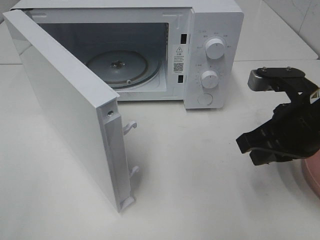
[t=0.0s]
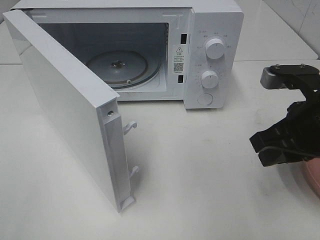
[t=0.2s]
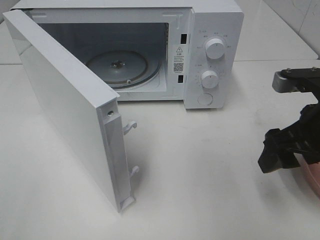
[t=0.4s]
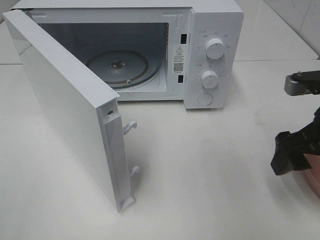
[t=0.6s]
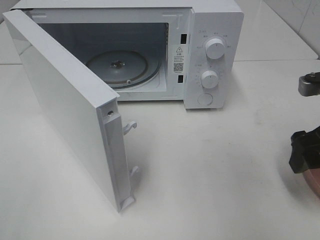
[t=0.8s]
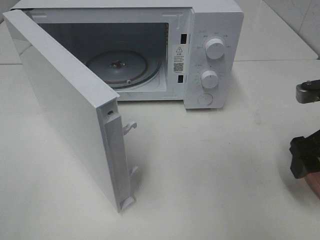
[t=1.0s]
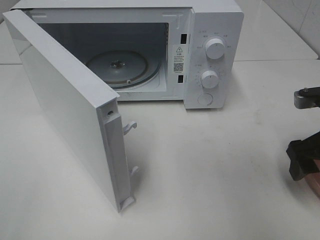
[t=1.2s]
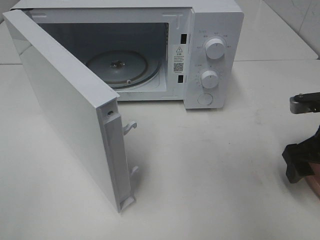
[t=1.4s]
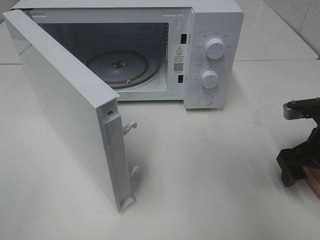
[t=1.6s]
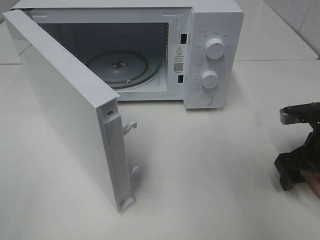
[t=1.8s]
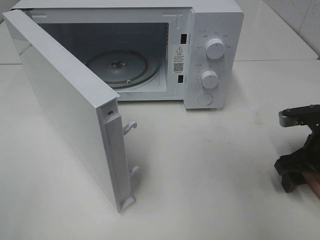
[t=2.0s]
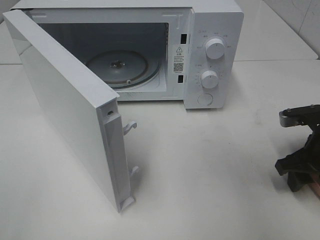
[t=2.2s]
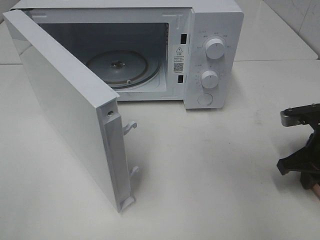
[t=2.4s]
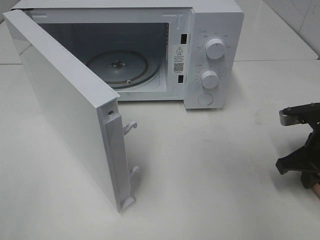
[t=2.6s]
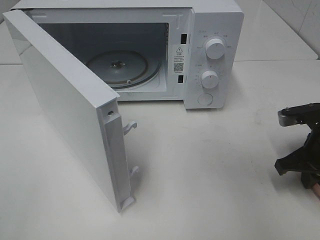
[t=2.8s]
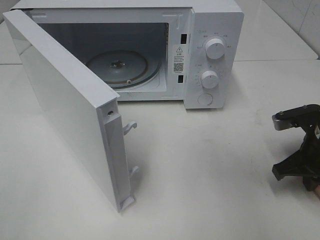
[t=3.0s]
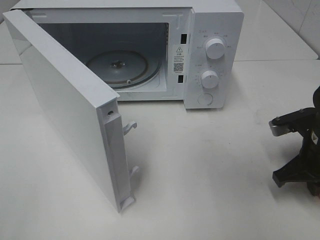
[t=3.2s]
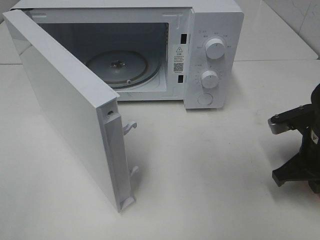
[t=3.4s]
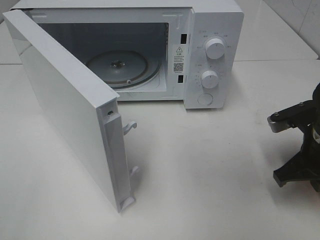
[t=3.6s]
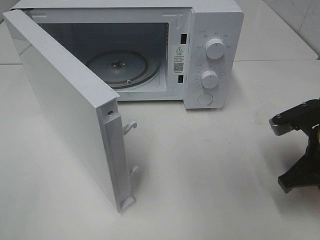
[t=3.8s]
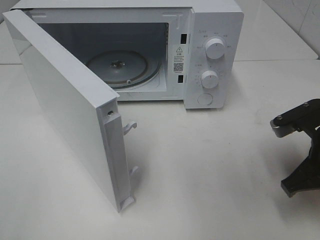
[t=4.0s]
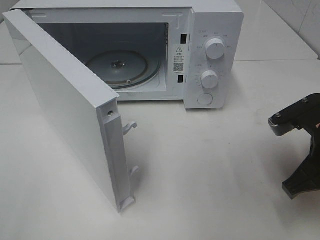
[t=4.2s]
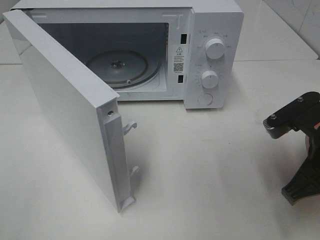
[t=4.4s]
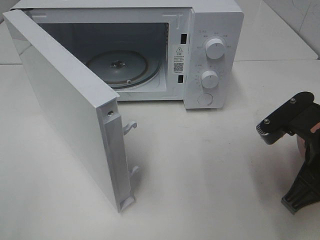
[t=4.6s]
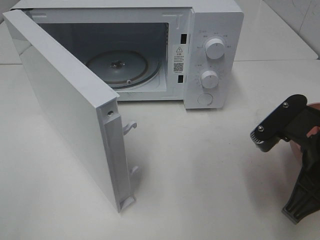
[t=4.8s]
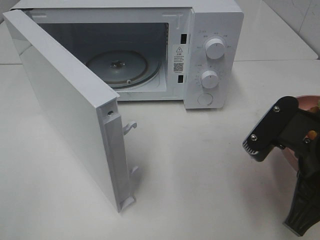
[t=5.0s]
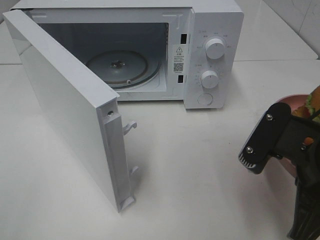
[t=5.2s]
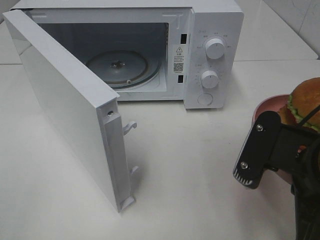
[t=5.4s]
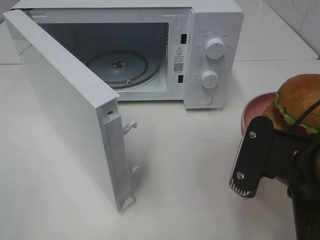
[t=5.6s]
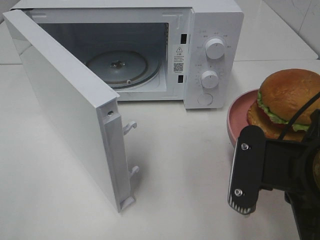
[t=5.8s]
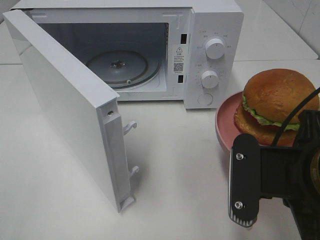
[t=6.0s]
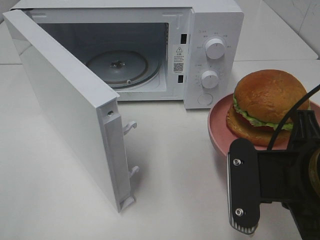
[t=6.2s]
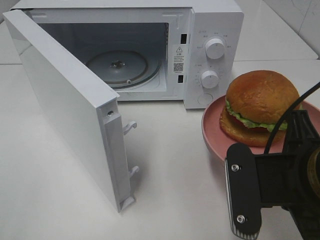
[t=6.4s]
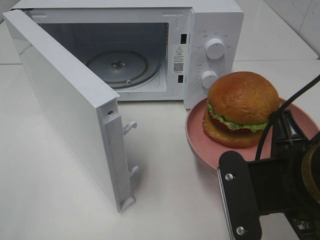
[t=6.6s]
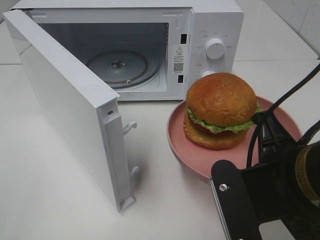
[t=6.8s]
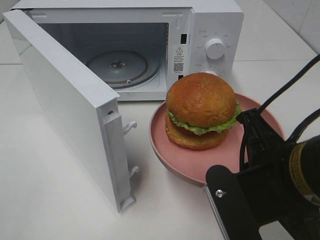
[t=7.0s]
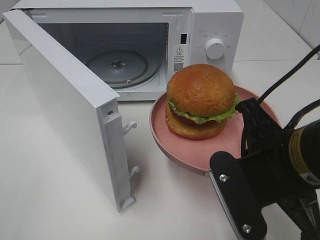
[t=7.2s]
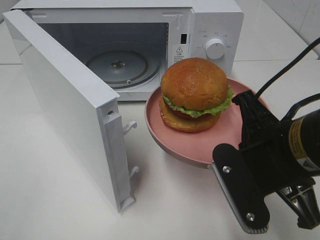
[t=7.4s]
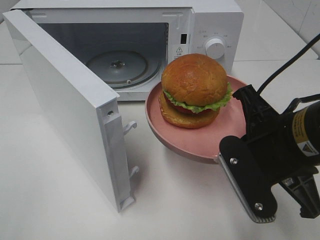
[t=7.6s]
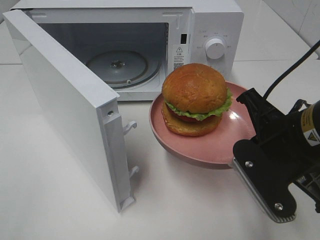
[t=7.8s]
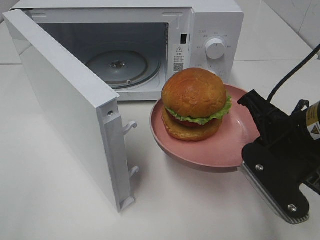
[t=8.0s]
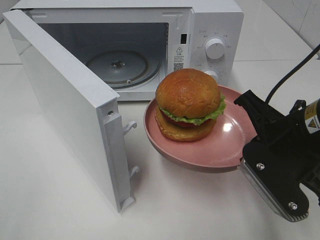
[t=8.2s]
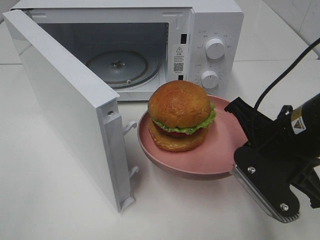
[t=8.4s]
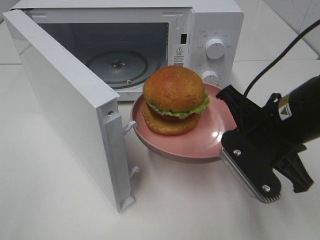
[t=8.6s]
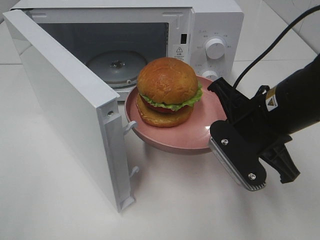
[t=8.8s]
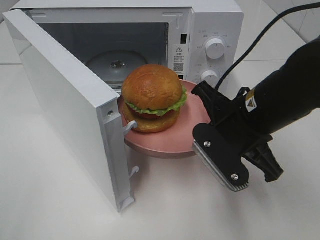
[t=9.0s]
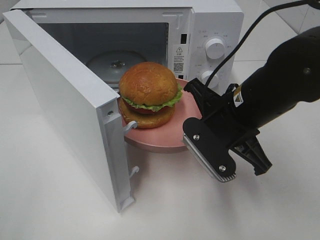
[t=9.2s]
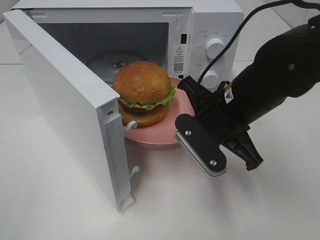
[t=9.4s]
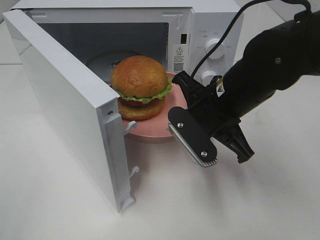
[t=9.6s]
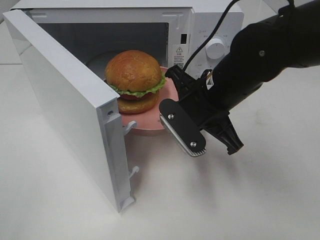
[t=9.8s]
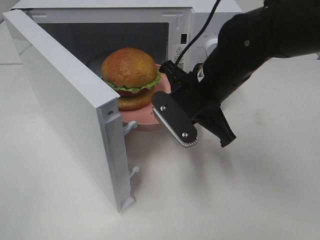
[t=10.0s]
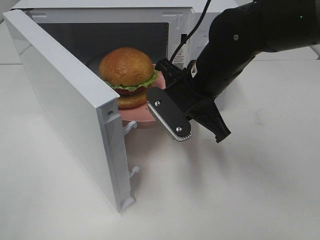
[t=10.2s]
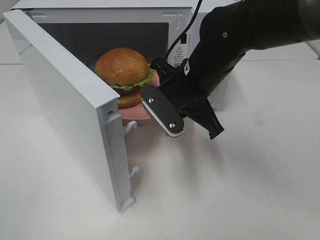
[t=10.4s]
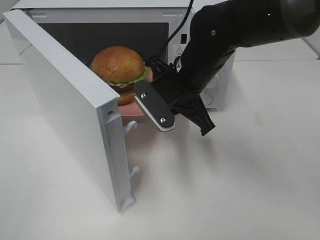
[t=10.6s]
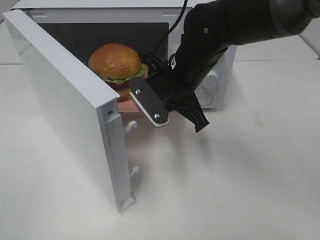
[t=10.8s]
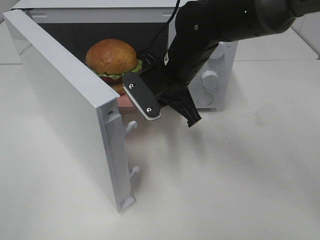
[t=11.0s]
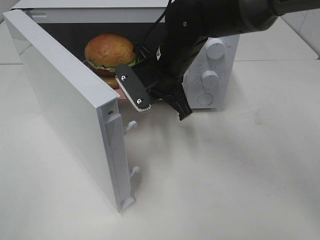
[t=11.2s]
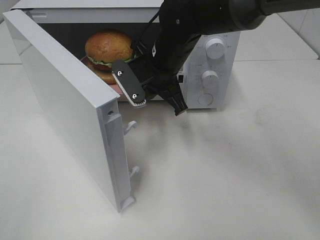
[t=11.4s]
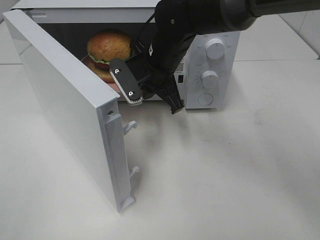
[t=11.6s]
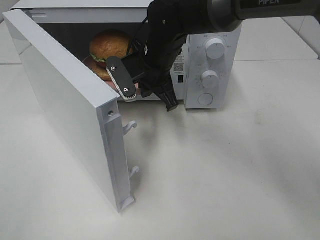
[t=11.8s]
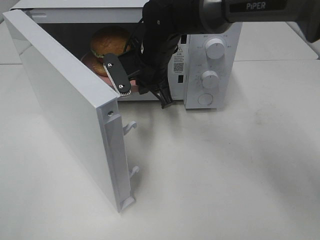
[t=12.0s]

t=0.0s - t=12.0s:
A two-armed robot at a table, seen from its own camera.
Task of the whole recording: Heat the burger.
Step, t=0.0s - t=2.8s: Right hand: grab the plate with the hamburger.
t=0.0s - t=1.6s: The right gripper moves to the right and downward, approximately 10 cm, and opens its fingers.
t=1.6s - t=3.0s: The right gripper closes up.
t=3.0s - t=4.4s: The right gripper heads upward, backward and to the left, covering approximately 10 cm.
t=4.4s - t=6.0s: The right gripper travels backward and to the left by approximately 10 cm.
t=6.0s - t=7.6s: The right gripper travels forward by approximately 5 cm.
t=7.6s - t=9.0s: The right gripper goes about 5 cm forward.
t=9.0s - t=10.4s: The right gripper moves forward and to the left, roughly 10 cm.
t=10.4s - t=12.0s: The right gripper travels forward and to the left by approximately 10 cm.

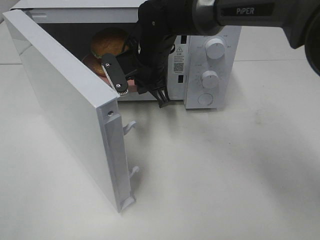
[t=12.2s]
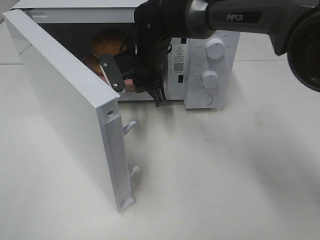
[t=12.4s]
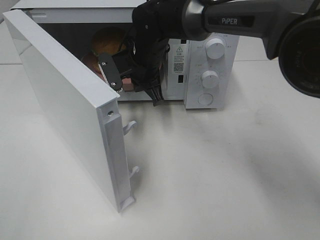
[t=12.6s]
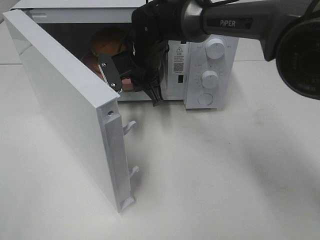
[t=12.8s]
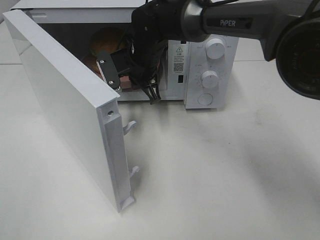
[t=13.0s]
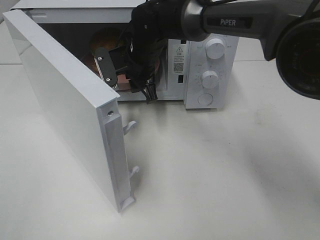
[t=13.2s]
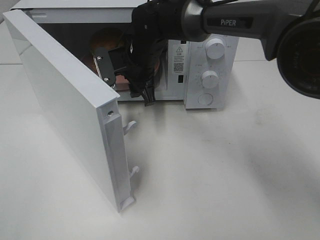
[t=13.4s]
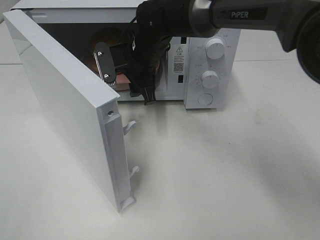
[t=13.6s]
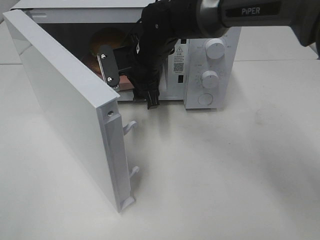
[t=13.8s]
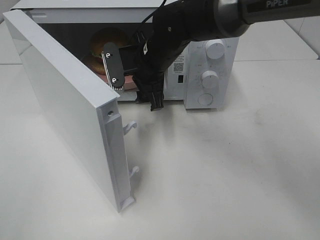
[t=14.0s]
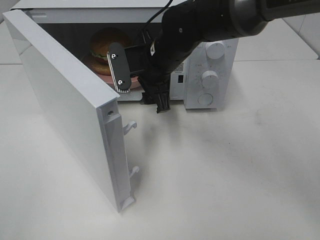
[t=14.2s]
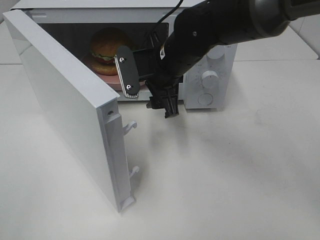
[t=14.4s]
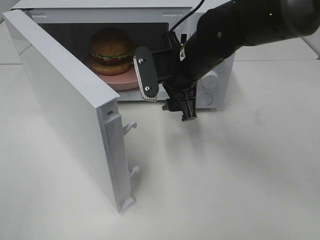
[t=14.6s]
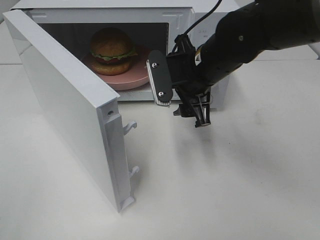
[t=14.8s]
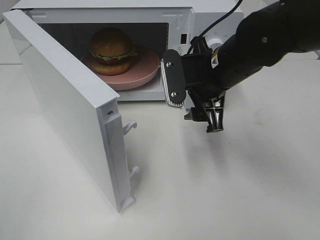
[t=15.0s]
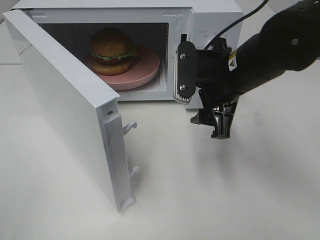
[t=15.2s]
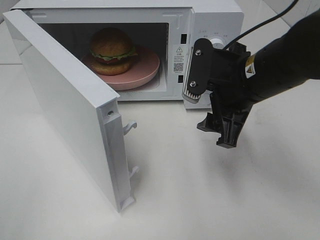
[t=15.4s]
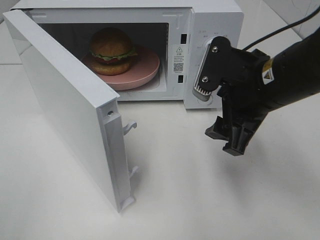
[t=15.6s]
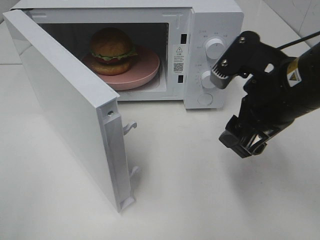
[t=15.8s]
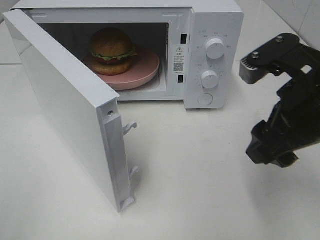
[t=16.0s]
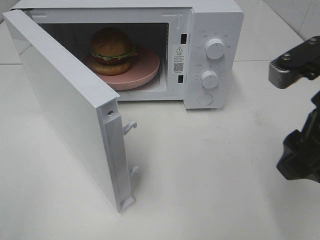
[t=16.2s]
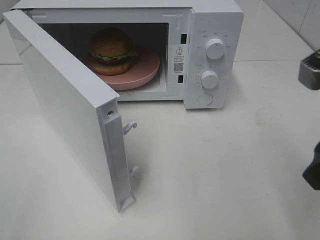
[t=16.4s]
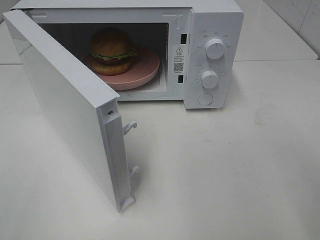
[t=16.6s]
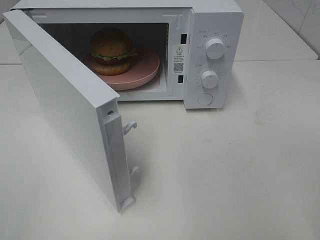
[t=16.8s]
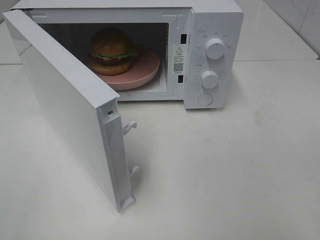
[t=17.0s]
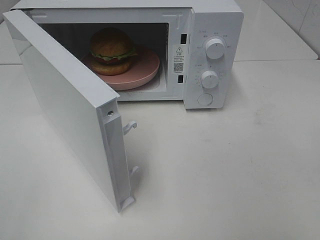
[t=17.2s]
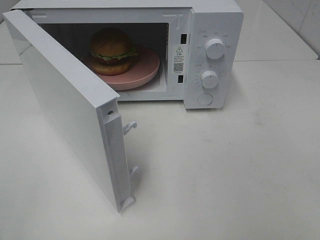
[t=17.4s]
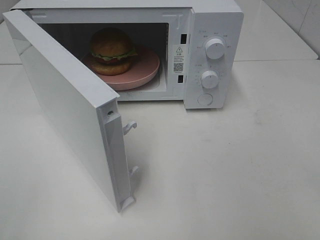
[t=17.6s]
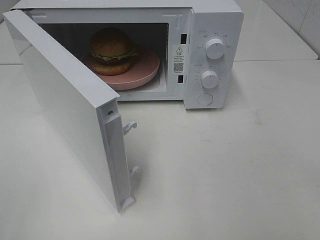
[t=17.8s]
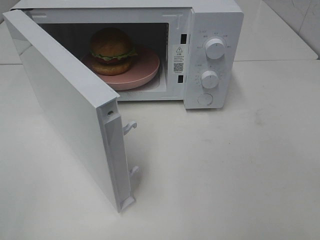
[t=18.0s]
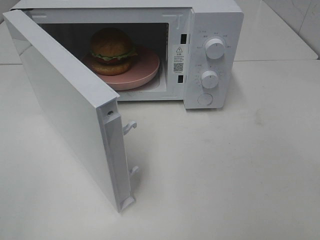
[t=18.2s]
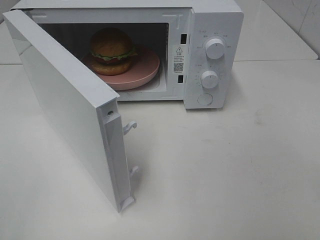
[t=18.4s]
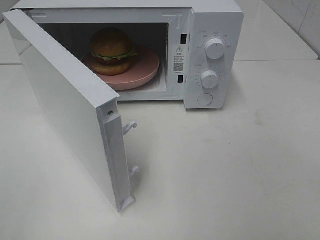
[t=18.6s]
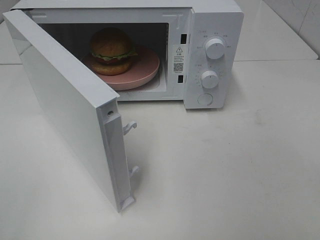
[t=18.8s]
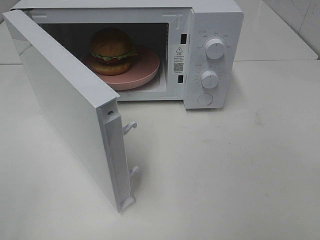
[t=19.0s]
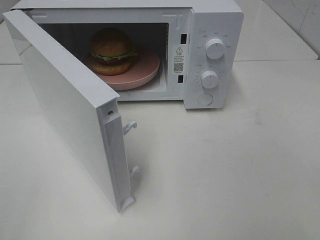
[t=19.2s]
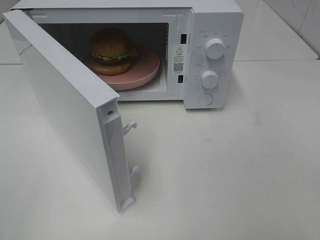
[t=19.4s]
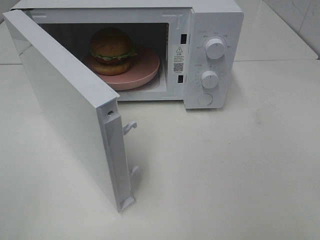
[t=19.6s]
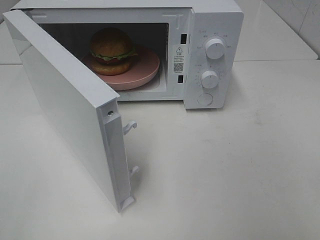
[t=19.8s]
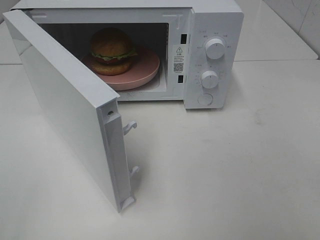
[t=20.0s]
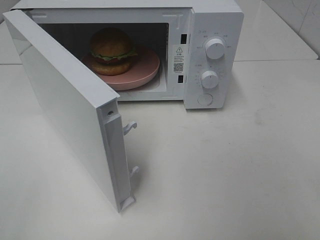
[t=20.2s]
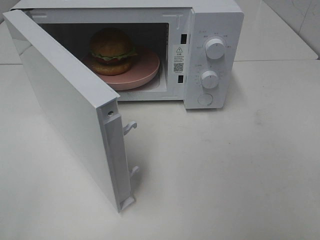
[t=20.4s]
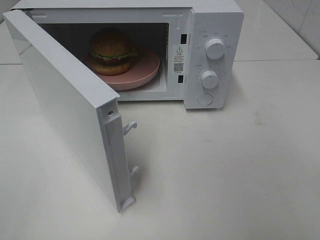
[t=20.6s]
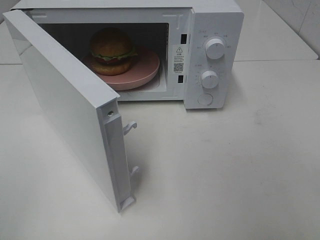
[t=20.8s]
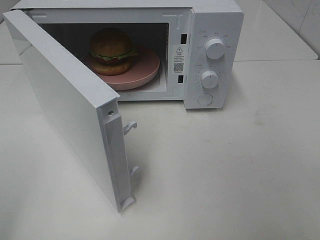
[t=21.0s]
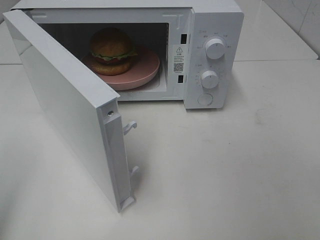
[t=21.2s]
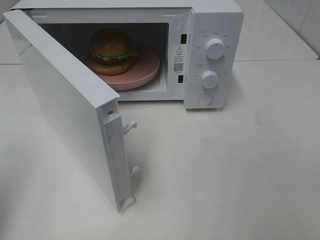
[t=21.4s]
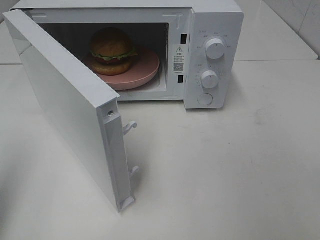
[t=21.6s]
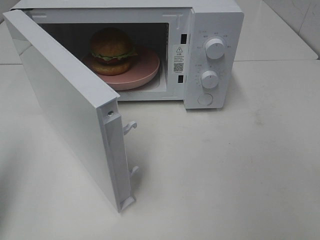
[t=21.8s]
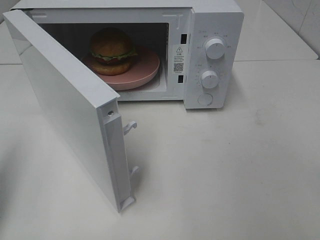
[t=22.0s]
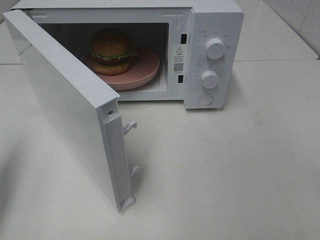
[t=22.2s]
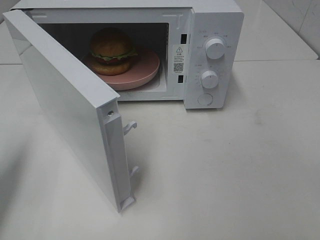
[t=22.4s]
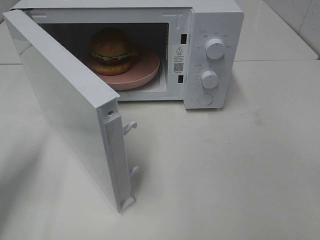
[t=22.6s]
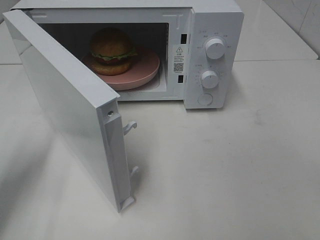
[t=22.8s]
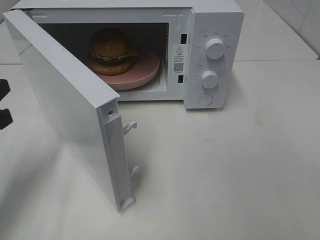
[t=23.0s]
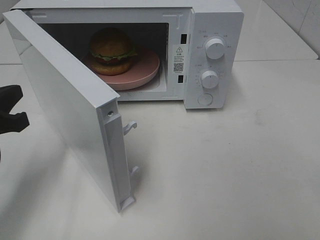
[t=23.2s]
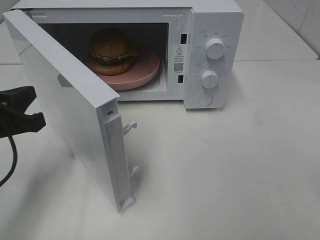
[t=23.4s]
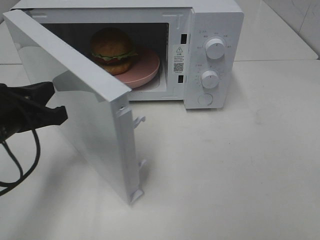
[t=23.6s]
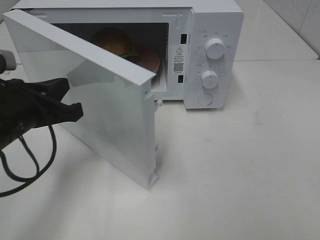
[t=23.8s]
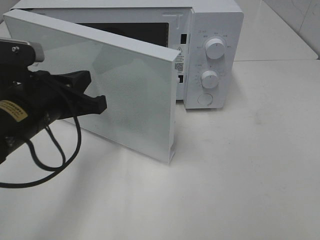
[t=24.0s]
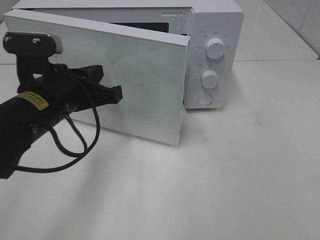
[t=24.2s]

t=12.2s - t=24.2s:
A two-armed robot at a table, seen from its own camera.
Task of the whole recording: Heat the burger.
t=12.2s - t=13.8s: The right gripper opens.
t=13.8s - t=15.2s: The right gripper is displaced to the right and backward by approximately 15 cm.
t=15.2s - t=16.6s: The right gripper travels backward, to the right and upward by approximately 20 cm.
t=18.2s - t=19.8s: Both grippers stay about where they are.
t=21.2s - t=22.6s: The left gripper shifts approximately 15 cm forward and downward.
t=22.6s - t=24.2s: The left gripper shifts about 15 cm to the right.
